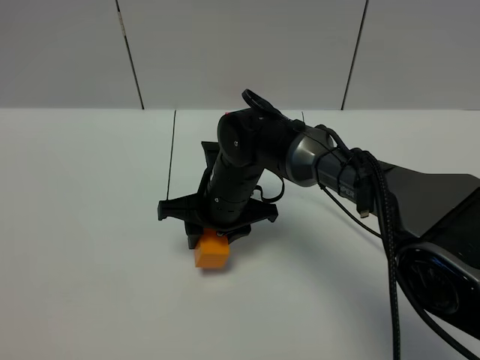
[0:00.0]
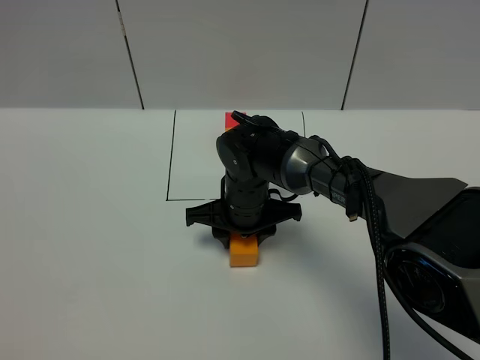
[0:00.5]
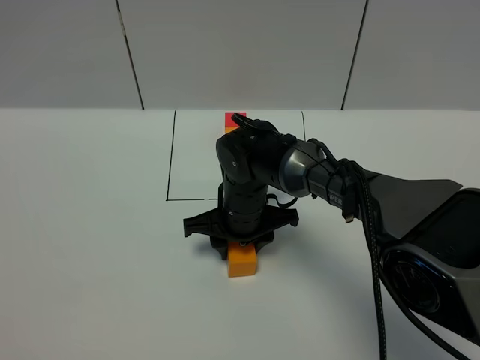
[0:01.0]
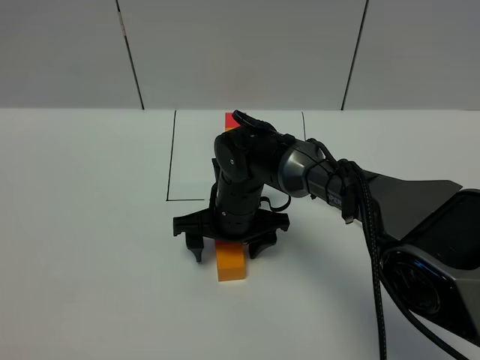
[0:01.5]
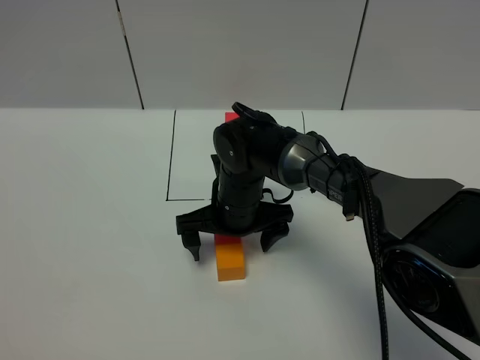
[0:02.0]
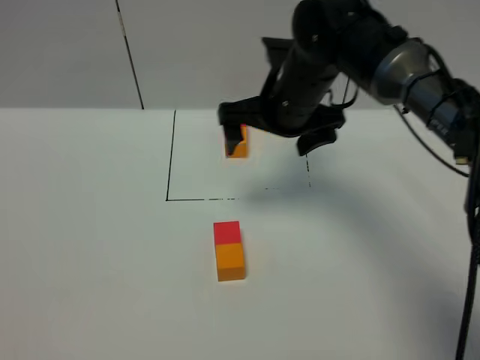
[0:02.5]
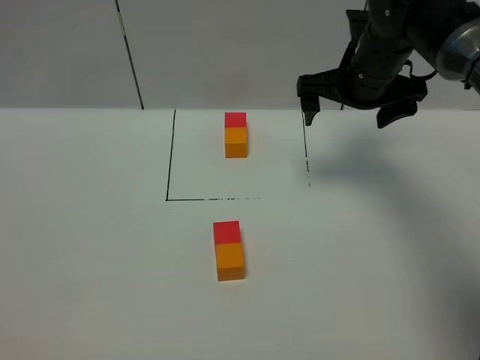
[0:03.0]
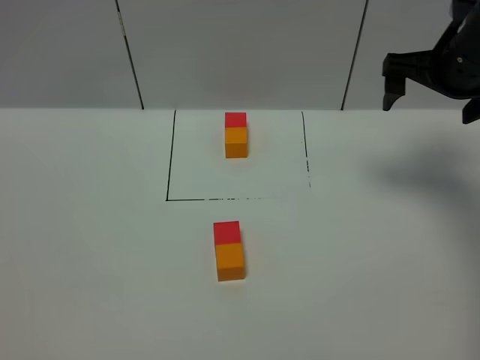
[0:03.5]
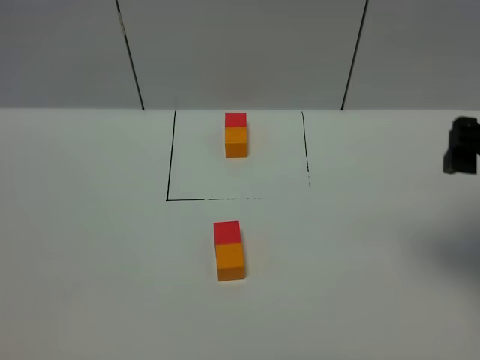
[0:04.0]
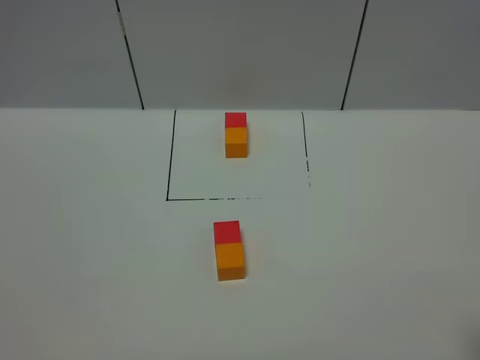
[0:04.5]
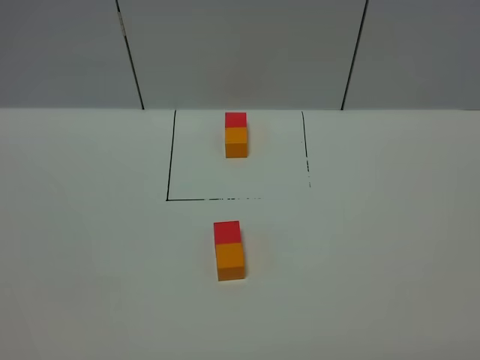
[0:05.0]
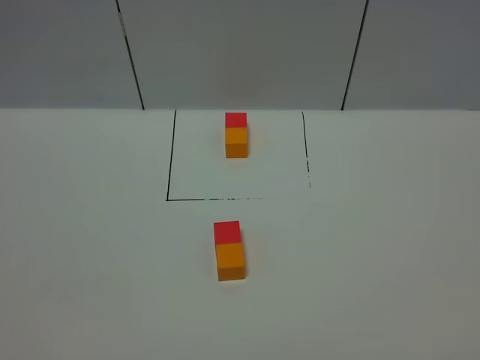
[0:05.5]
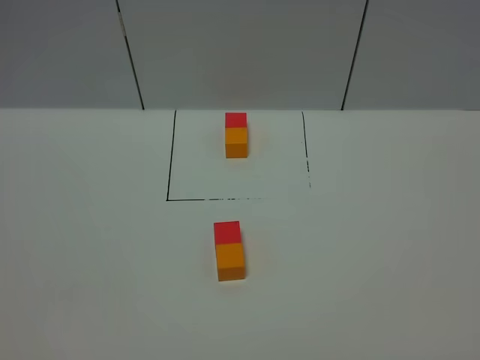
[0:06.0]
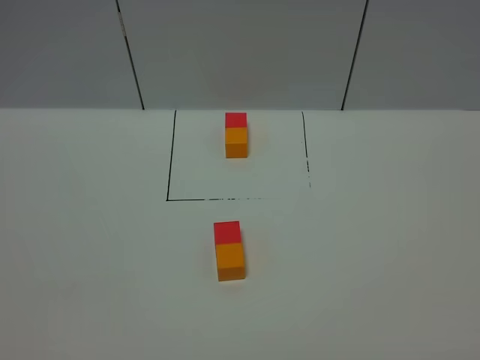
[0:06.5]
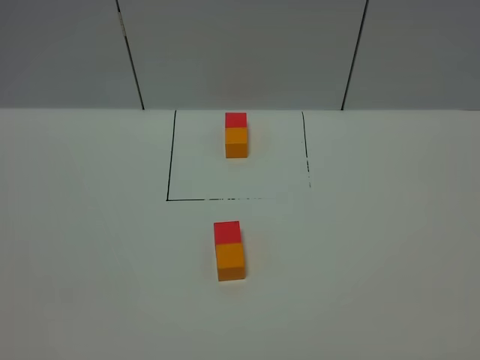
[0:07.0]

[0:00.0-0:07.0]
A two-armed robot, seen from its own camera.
Task of the whole recording: According to the building block template in front, assemble the scattered blocks together.
0:00.0 to 0:02.0: The right gripper opens.
0:02.0 to 0:03.5: The right gripper heads to the right and upward, covering roughly 30 cm.
0:03.5 to 0:05.0: The right gripper shifts roughly 40 cm backward.
